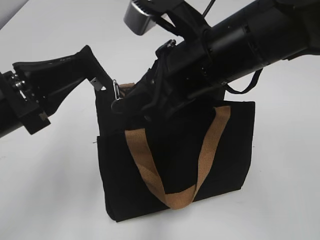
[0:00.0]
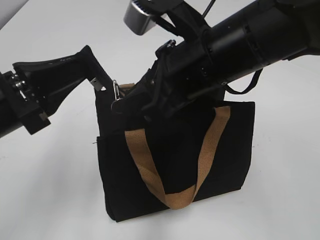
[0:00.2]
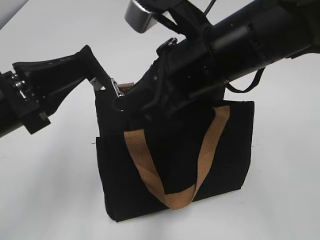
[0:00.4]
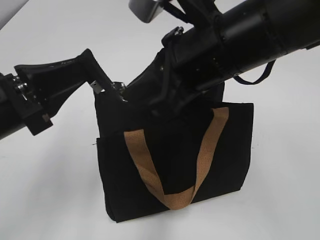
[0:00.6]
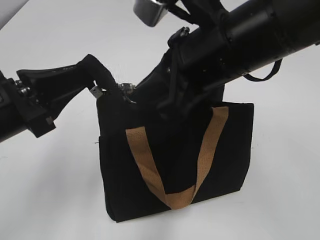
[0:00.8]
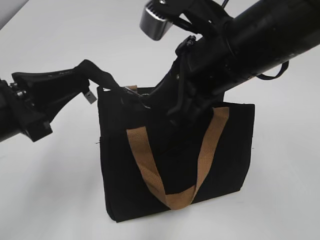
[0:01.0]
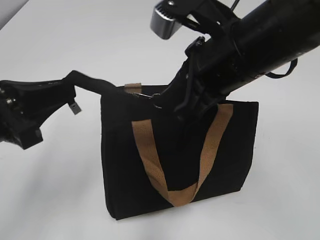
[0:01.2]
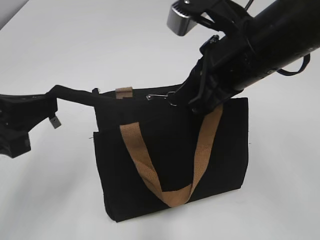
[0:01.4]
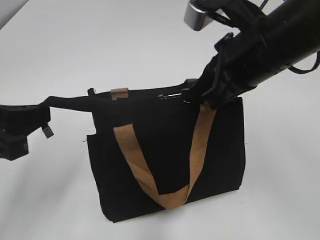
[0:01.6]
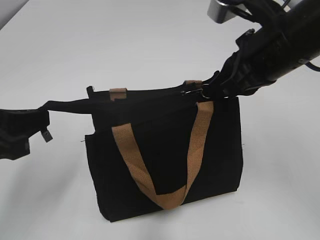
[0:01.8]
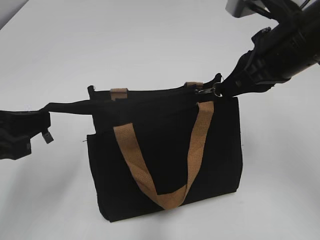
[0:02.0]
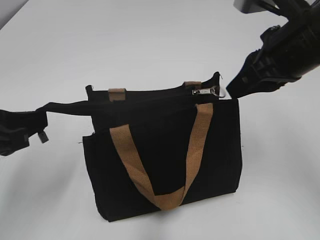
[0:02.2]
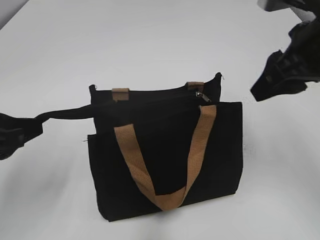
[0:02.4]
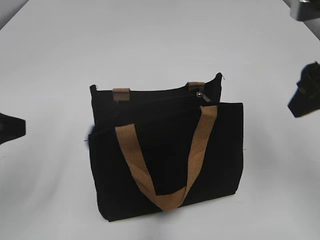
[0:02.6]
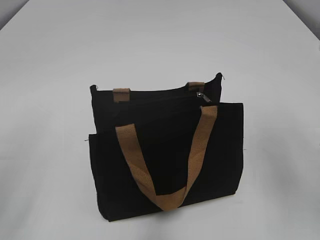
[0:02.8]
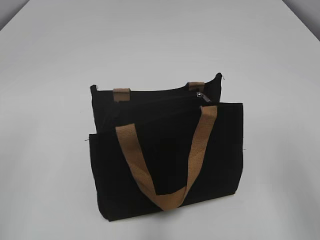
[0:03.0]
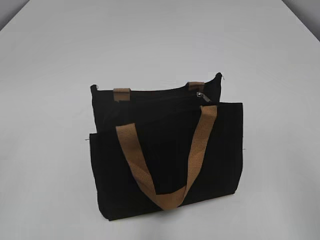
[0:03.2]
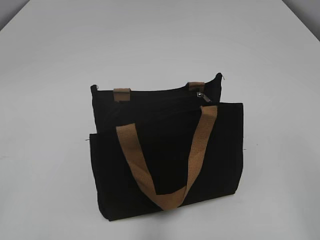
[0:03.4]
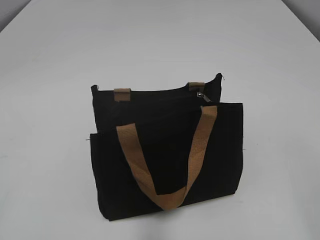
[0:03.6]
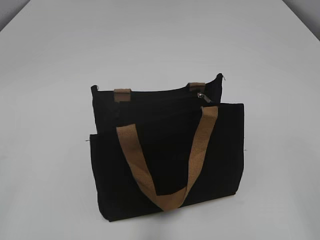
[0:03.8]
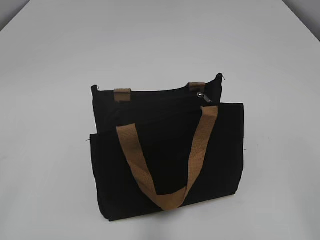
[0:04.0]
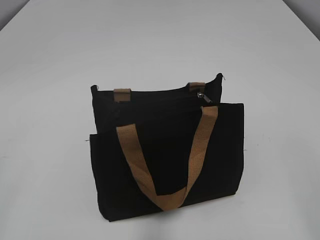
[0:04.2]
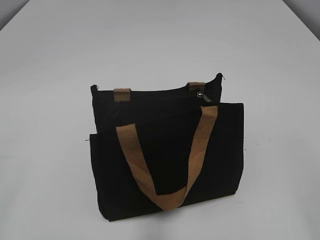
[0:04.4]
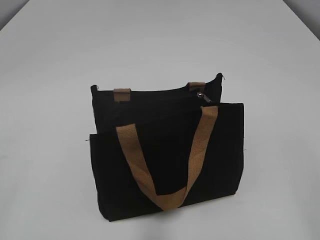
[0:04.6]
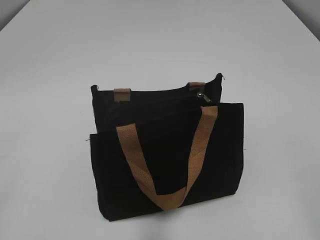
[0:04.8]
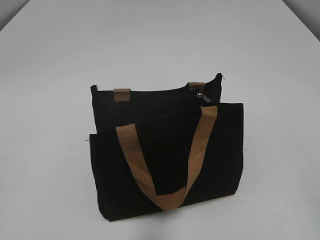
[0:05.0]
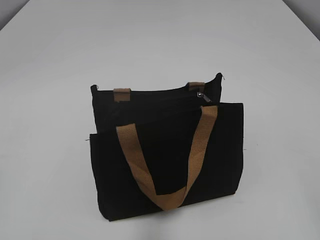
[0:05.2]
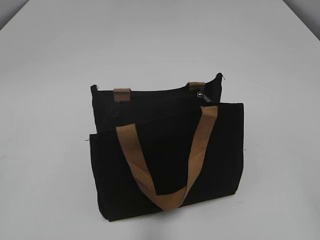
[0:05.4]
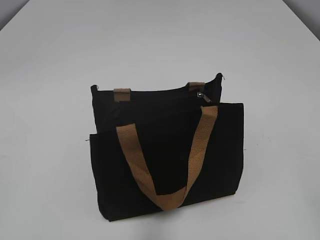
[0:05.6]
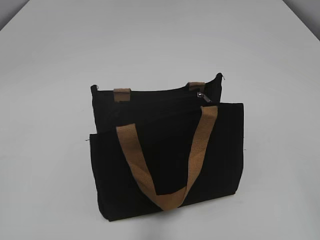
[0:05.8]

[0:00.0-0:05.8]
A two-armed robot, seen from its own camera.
Step, 0:00.0 to 0:02.2: Zip up the bag with your right hand.
0:00.0 to 0:01.4: The right gripper closes.
0:01.4 to 0:02.8: The right gripper is displaced to the right and backward by about 15 cm, and opens, while the left gripper moves about 5 cm, and opens.
